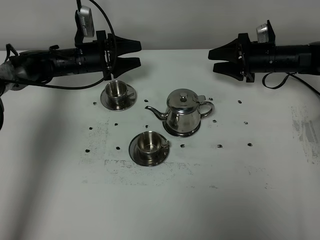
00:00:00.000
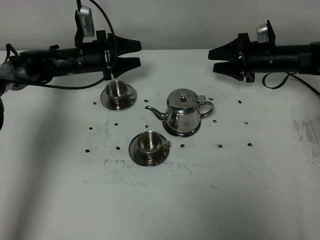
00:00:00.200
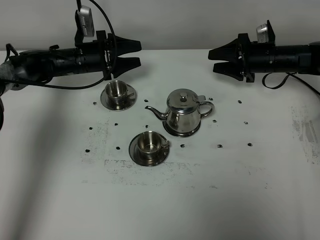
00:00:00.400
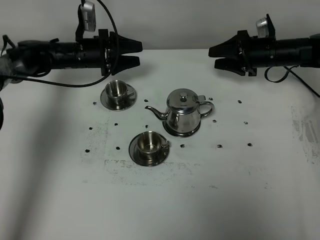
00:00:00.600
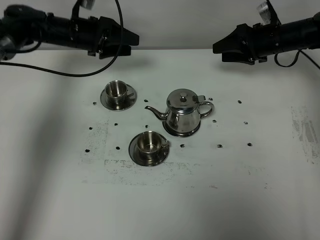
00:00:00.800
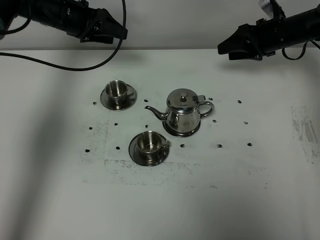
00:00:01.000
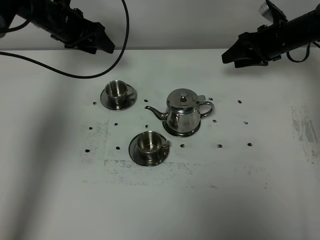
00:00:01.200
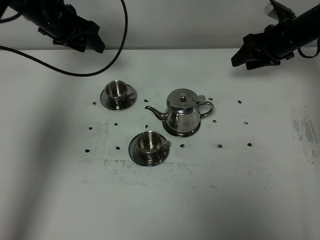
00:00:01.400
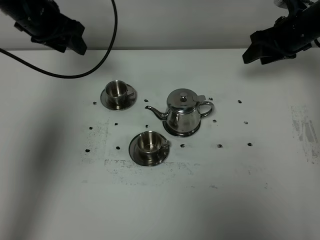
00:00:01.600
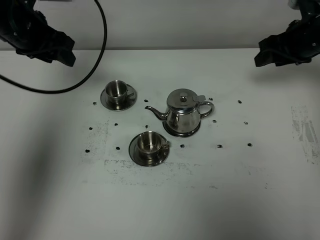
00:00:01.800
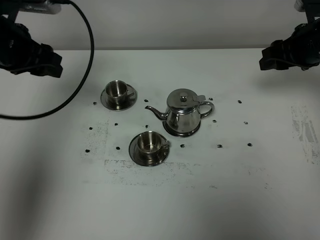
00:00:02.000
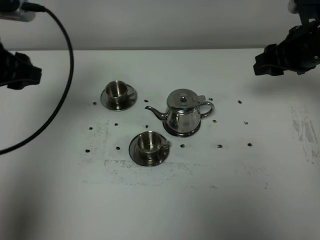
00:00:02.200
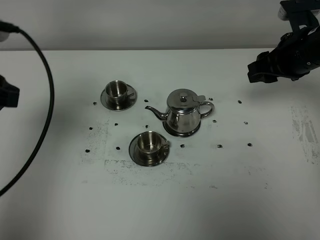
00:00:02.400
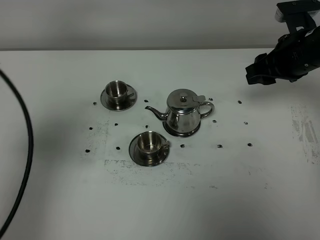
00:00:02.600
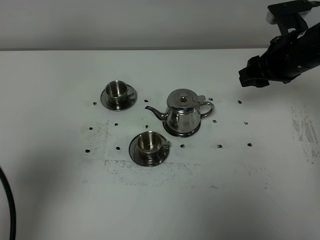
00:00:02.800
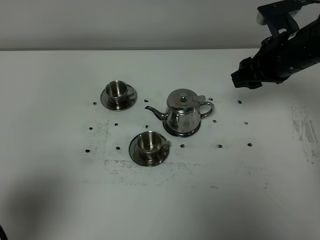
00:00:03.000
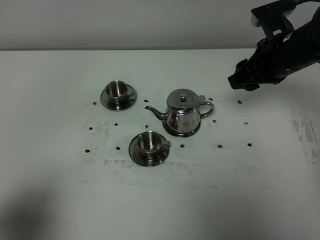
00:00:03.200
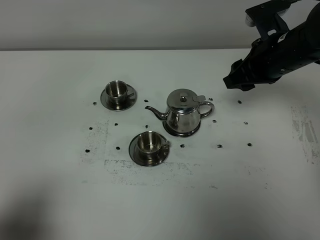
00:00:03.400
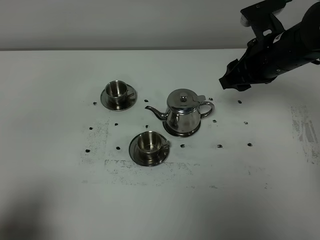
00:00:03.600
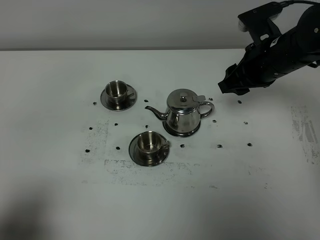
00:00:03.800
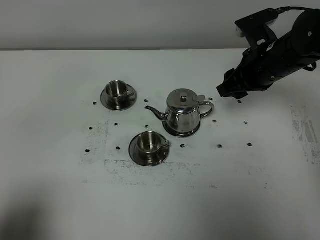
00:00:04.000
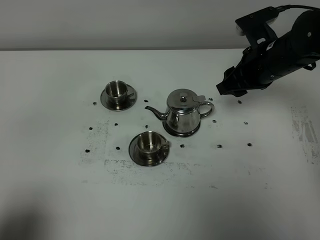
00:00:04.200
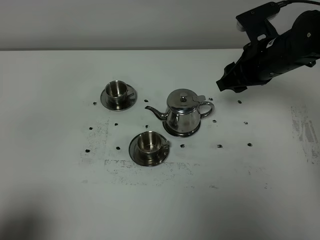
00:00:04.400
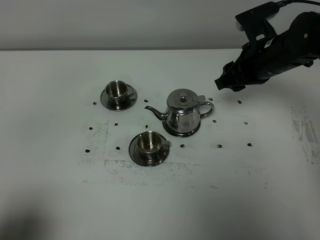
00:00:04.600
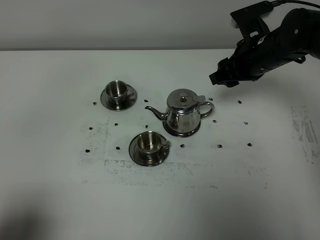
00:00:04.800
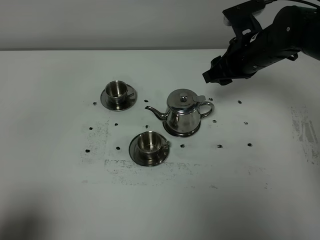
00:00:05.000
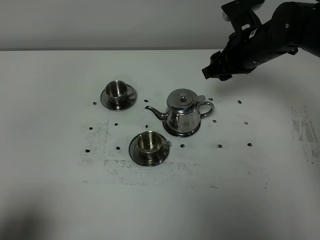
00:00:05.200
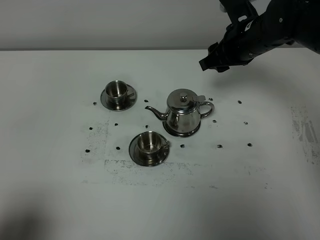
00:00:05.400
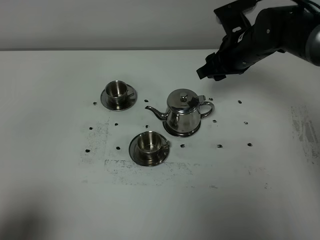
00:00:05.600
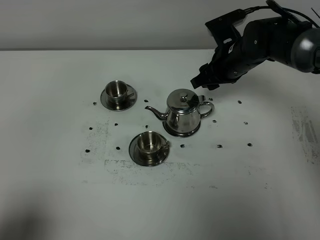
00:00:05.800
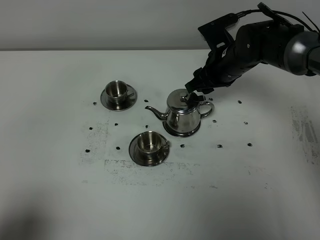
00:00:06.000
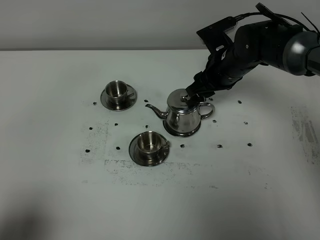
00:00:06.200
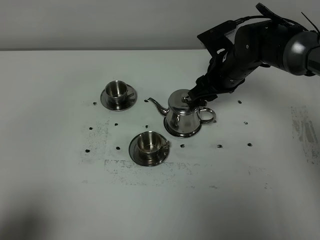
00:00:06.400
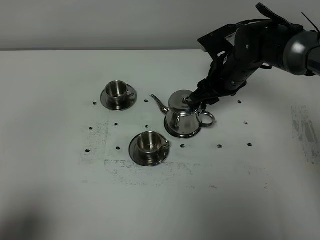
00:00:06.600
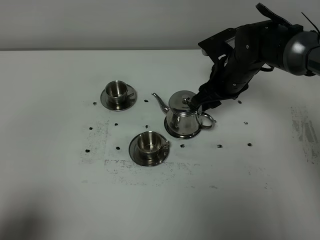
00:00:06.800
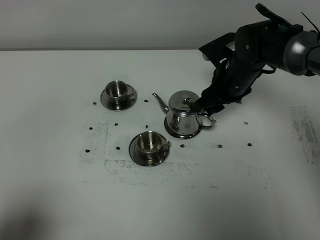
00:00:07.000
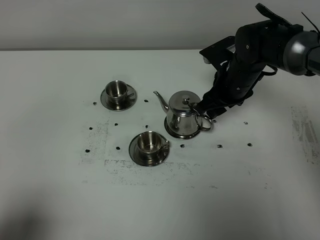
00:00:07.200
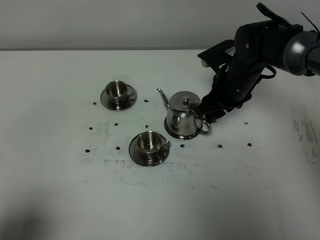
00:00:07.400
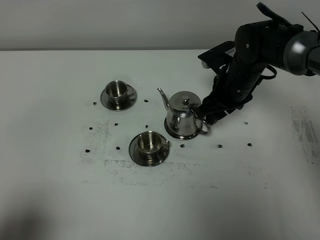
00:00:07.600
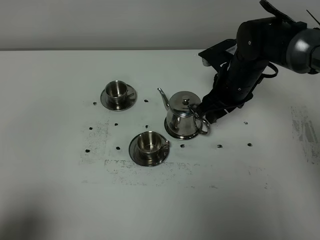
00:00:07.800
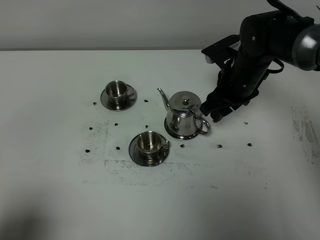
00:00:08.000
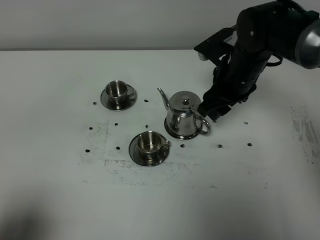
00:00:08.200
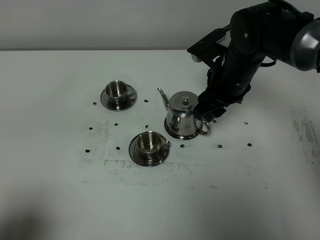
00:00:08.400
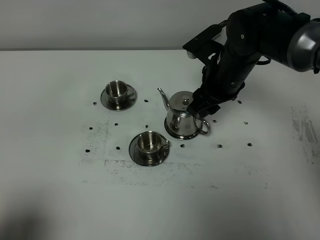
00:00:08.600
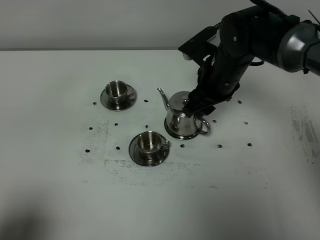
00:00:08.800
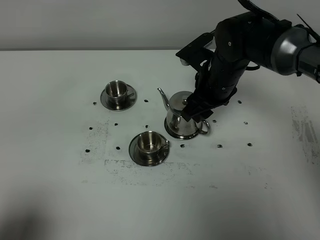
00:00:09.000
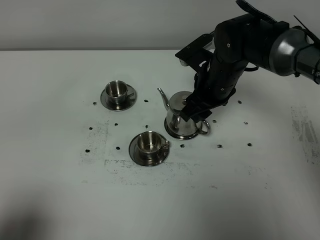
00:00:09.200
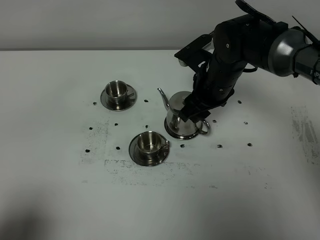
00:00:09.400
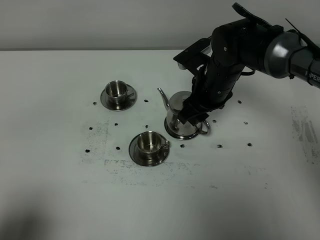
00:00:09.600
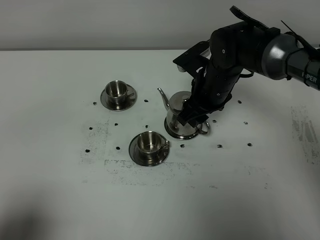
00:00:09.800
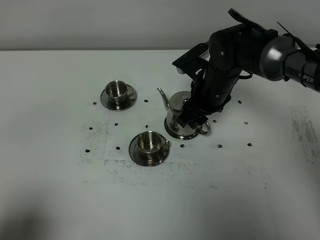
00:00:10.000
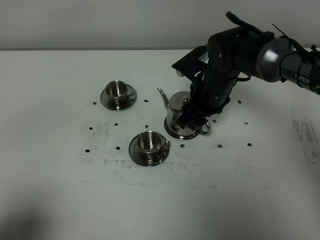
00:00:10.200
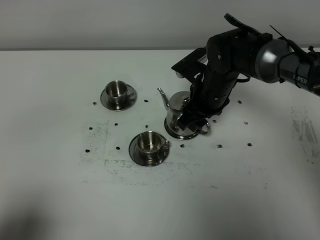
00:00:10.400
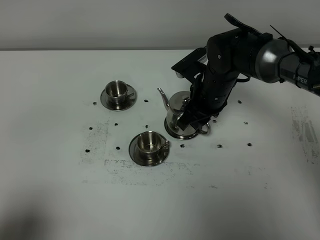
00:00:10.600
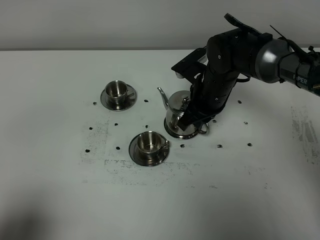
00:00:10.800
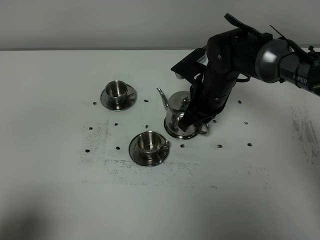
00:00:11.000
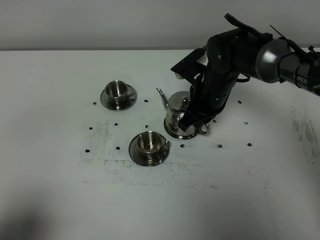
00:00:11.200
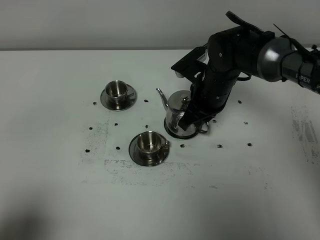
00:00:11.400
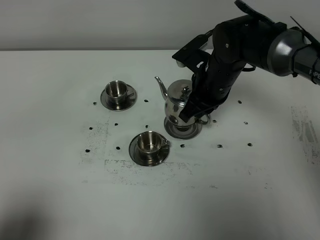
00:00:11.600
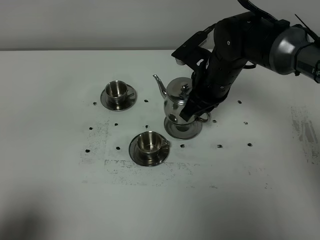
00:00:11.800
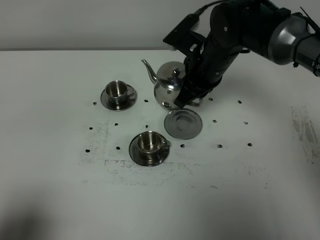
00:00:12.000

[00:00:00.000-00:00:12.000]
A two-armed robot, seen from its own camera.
Task of the whole recording: grasp the stainless steel teapot and pour the tea into the two stainless steel teacups one by one, put the stainless steel teapot back in its original place.
Step, 00:00:00.000 to 00:00:11.400: Pick up the teapot with the right gripper.
00:00:00.000 to 00:00:01.600: The right gripper moves upward, some 10 cm, while the left gripper travels upward by approximately 15 cm, and closes up.
00:00:01.600 to 00:00:03.000: The right gripper is displaced backward and to the left by roughly 10 cm. Meanwhile the left gripper moves backward, some 40 cm.
00:00:03.000 to 00:00:04.400: The left gripper moves backward, about 5 cm.
00:00:04.400 to 00:00:06.000: The right gripper moves downward, to the left and forward, about 10 cm.
00:00:07.600 to 00:00:09.000: The right gripper moves some 5 cm.
00:00:09.000 to 00:00:10.400: The grippers move only a little.
00:00:10.400 to 00:00:12.000: The right gripper moves upward, approximately 5 cm, and closes.

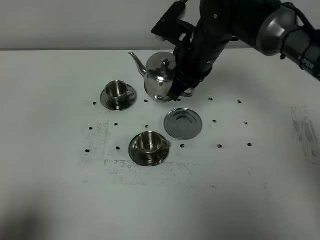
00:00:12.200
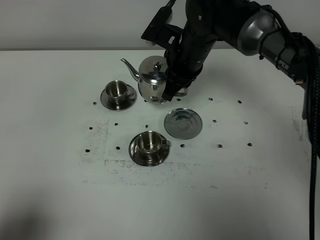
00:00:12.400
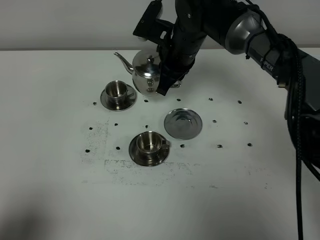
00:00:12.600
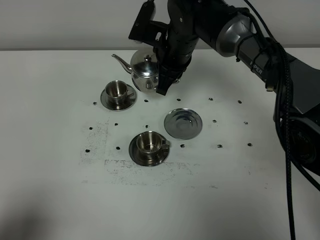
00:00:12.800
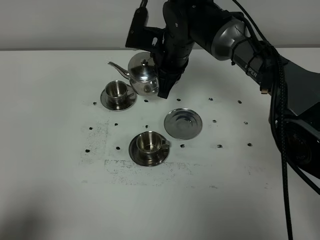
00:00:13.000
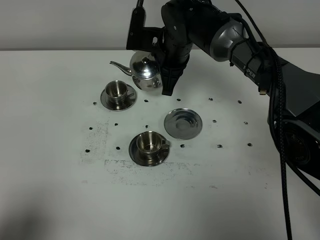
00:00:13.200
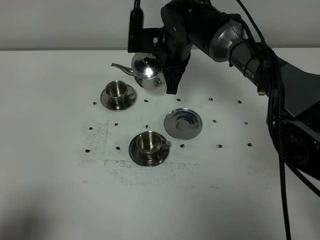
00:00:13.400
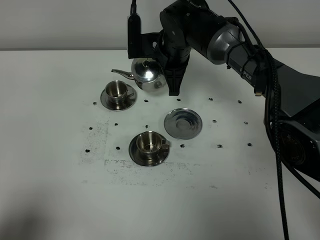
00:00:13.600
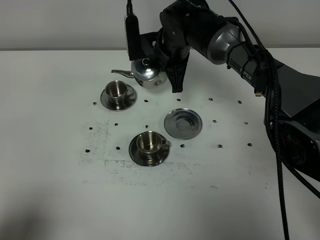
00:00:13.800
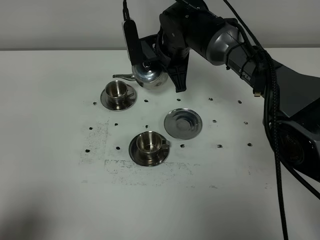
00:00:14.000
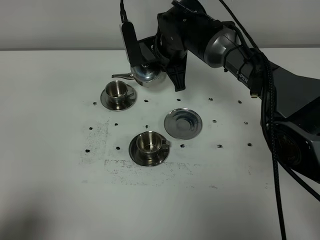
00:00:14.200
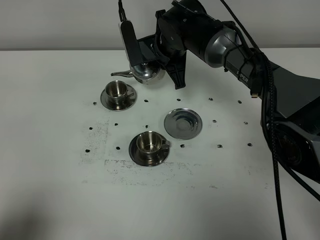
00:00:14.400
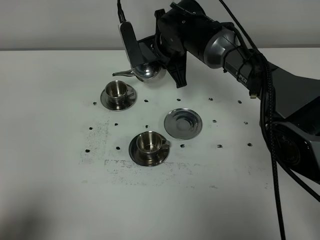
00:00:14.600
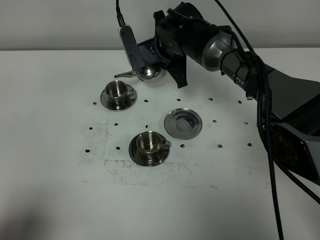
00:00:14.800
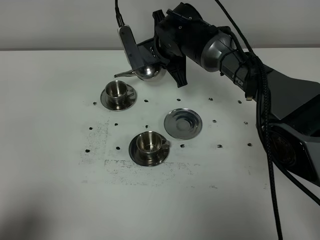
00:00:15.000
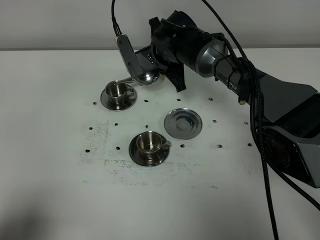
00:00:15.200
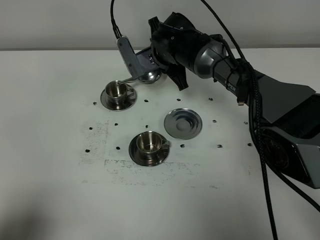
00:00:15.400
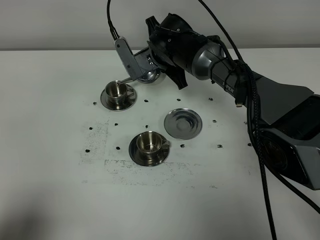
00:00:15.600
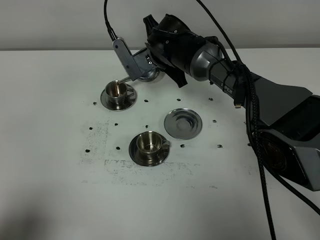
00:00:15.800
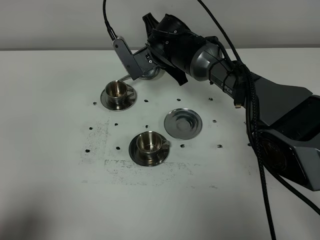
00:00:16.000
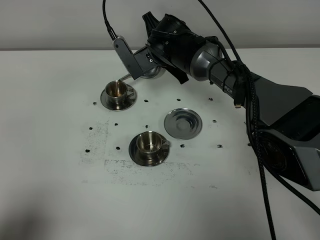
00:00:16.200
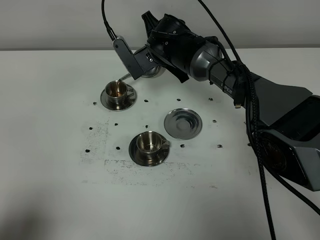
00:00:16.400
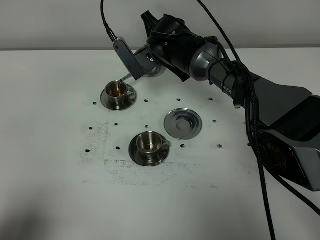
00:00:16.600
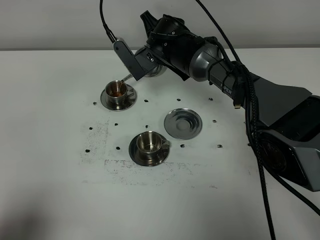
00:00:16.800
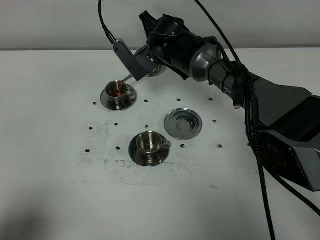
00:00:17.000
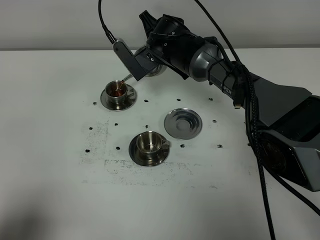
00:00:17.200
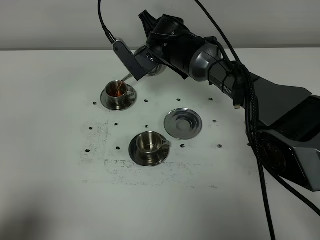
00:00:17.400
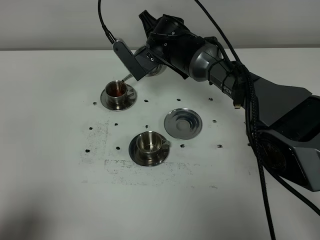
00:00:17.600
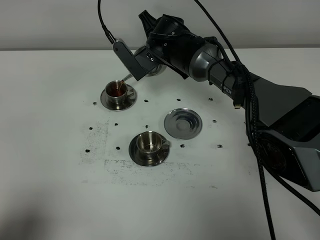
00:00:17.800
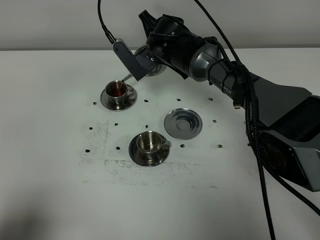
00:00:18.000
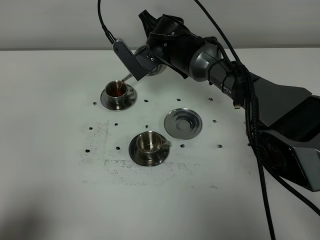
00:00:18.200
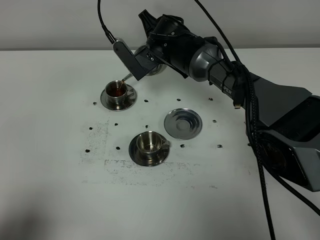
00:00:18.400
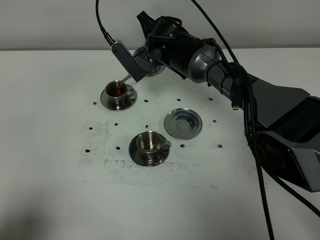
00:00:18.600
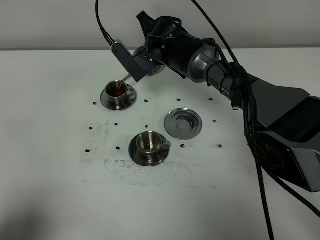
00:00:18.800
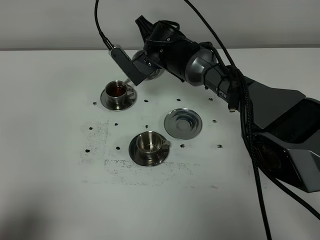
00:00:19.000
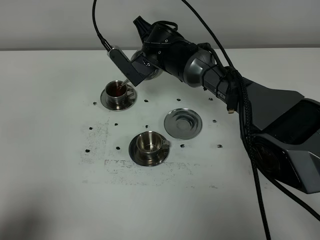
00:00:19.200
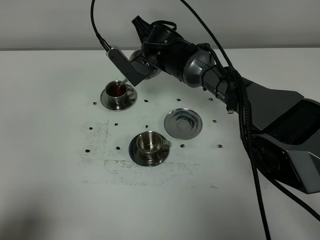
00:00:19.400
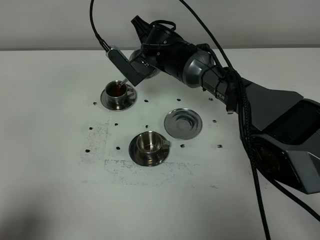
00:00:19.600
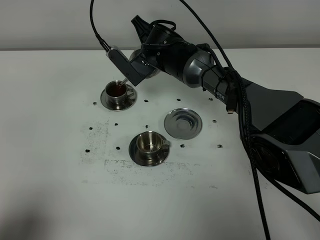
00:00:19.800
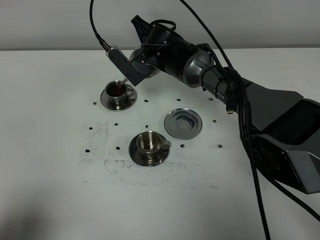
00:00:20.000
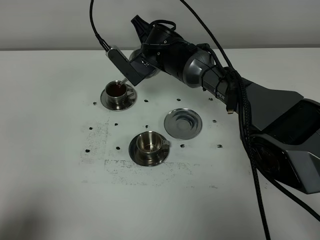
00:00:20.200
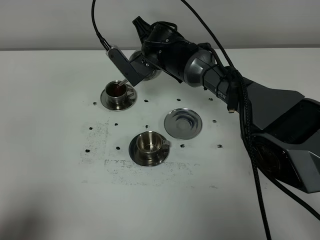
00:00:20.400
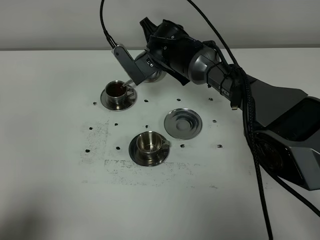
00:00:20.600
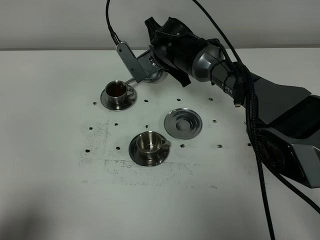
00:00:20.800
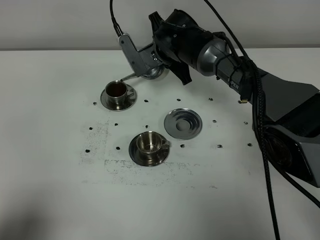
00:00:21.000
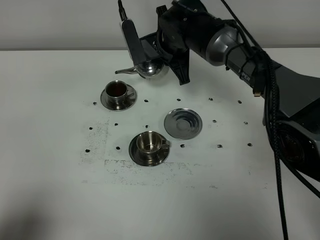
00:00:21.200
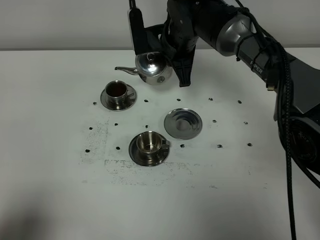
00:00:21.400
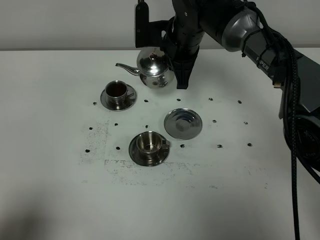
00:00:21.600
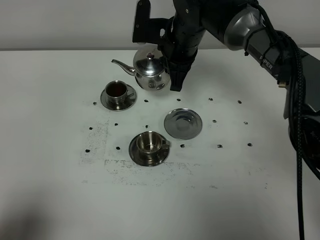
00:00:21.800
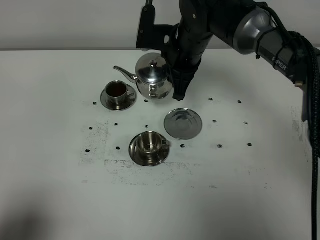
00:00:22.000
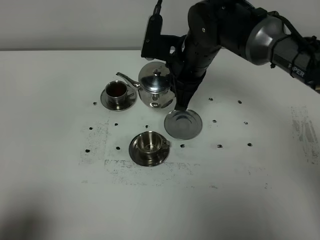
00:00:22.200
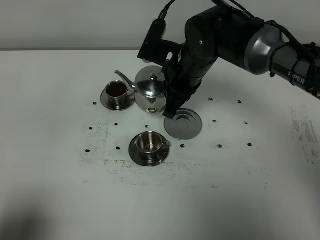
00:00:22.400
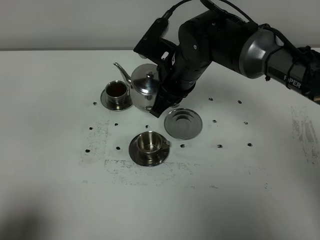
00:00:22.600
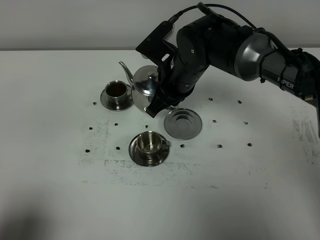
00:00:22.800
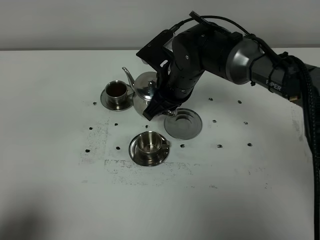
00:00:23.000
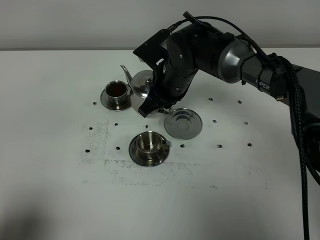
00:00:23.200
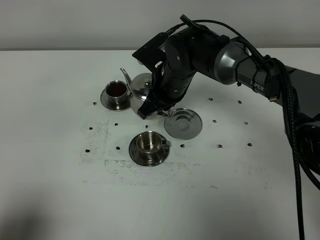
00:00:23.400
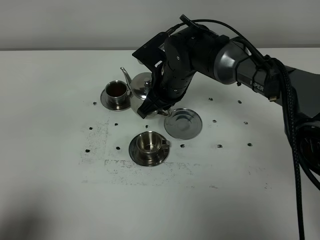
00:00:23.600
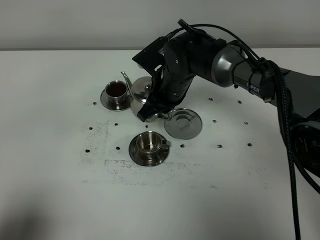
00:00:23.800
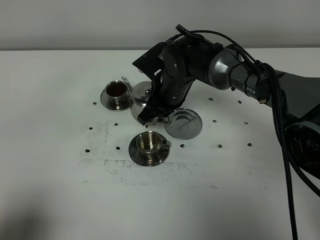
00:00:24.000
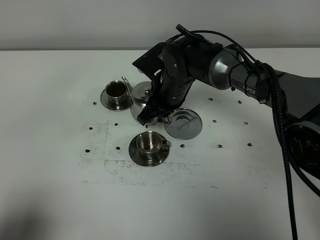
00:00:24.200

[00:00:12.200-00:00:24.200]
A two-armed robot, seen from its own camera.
Task of the whole recording: grasp the stainless steel teapot and pour the tea into the two stainless steel teacups one by one, put the stainless steel teapot back in its original place.
00:00:12.200 to 00:00:13.800: The right gripper goes approximately 5 cm forward.
00:00:13.800 to 00:00:15.200: The grippers make only small movements.
00:00:15.200 to 00:00:16.600: The grippers make only small movements.
00:00:16.600 to 00:00:18.200: Both grippers stay put.
00:00:18.200 to 00:00:19.800: The grippers make only small movements.
00:00:21.200 to 00:00:22.600: The right gripper travels backward by some 10 cm.
00:00:22.600 to 00:00:24.200: The right gripper goes some 5 cm downward.
